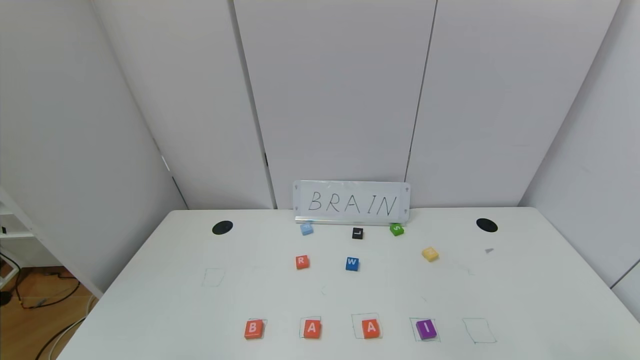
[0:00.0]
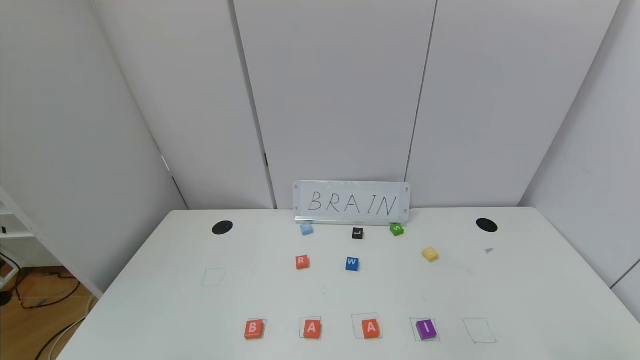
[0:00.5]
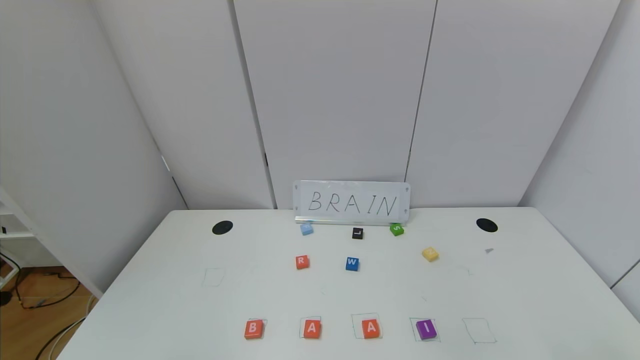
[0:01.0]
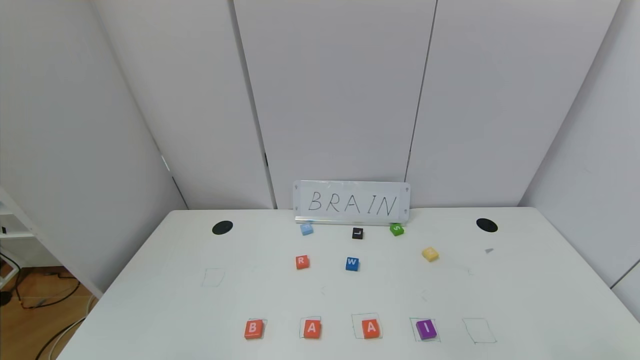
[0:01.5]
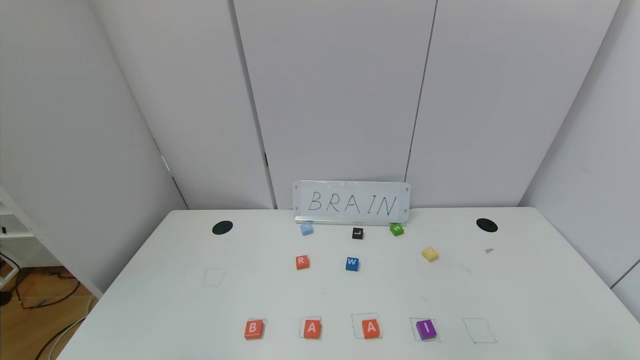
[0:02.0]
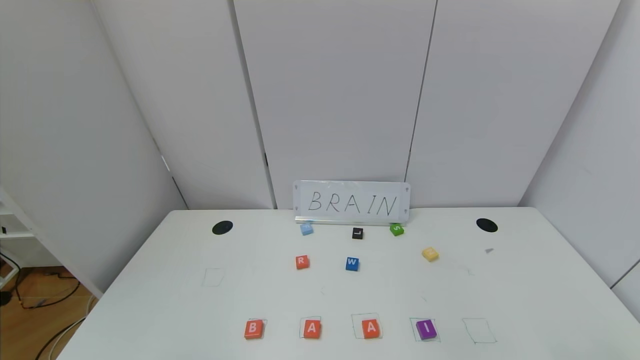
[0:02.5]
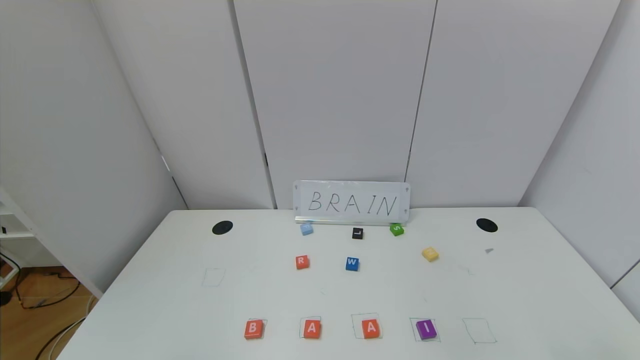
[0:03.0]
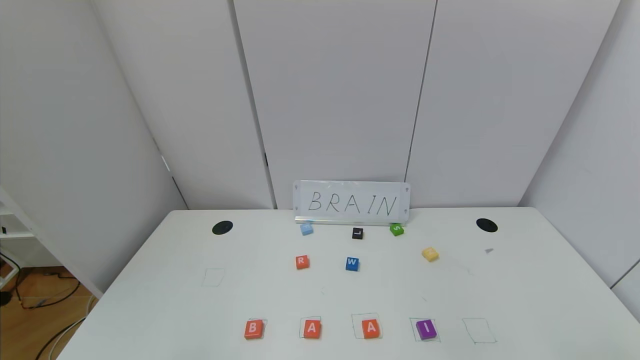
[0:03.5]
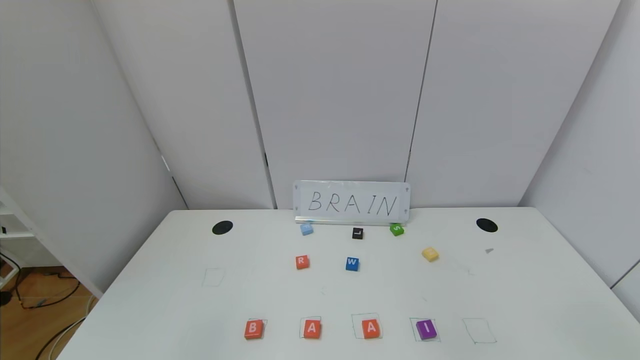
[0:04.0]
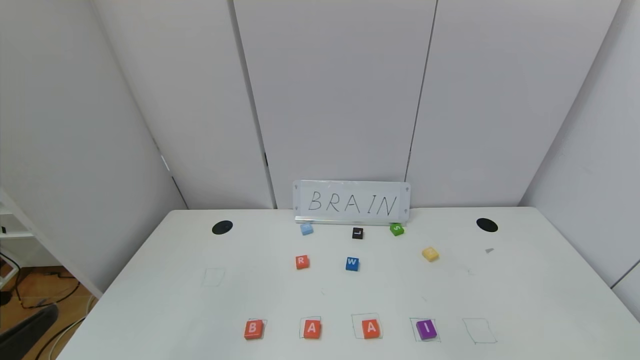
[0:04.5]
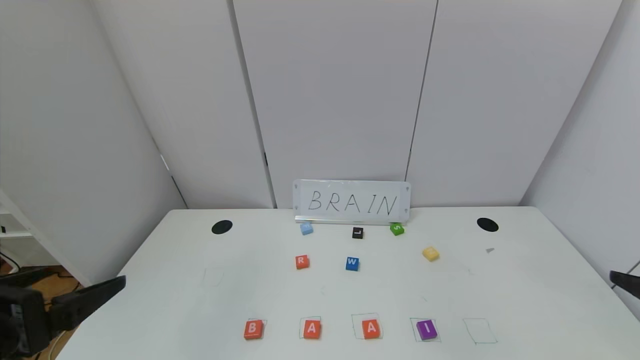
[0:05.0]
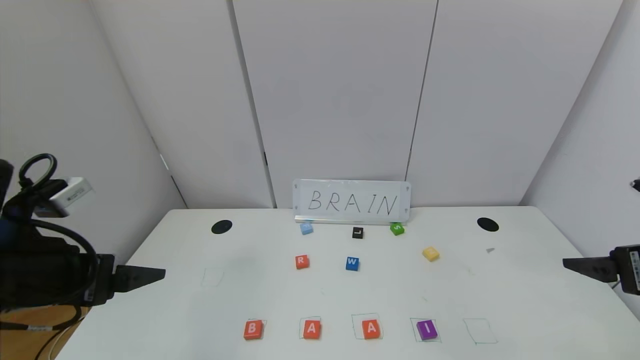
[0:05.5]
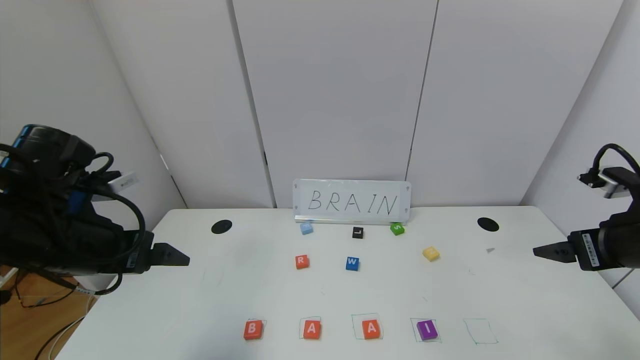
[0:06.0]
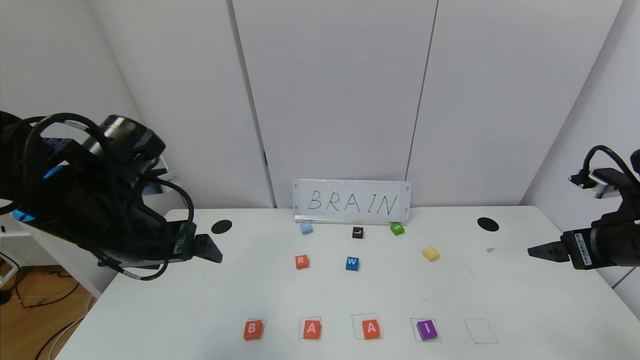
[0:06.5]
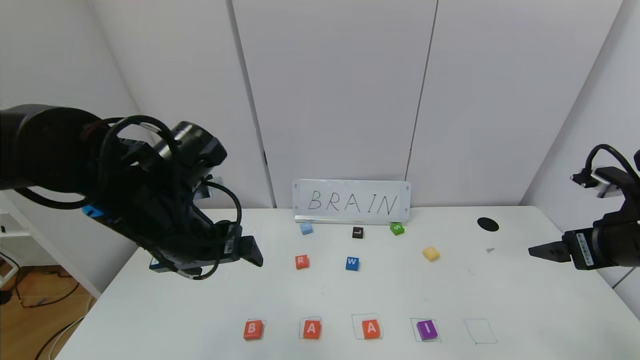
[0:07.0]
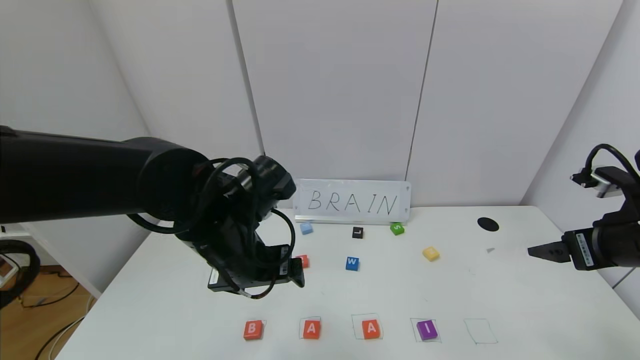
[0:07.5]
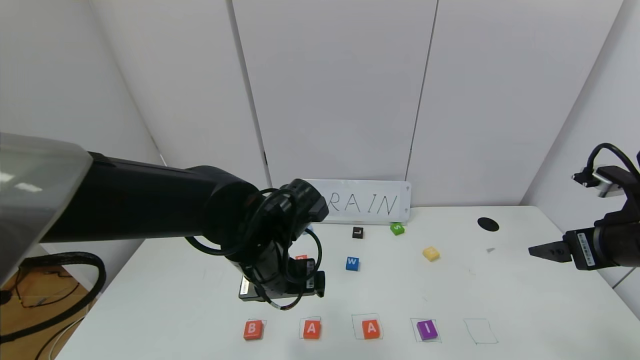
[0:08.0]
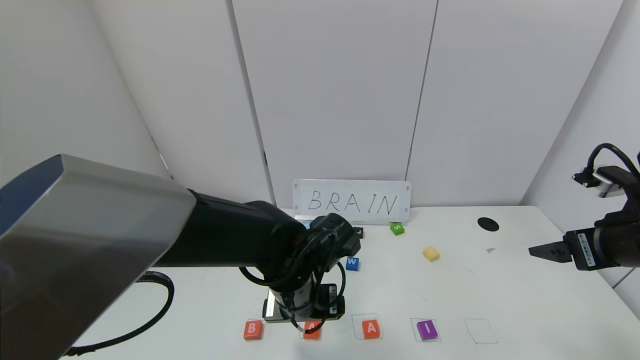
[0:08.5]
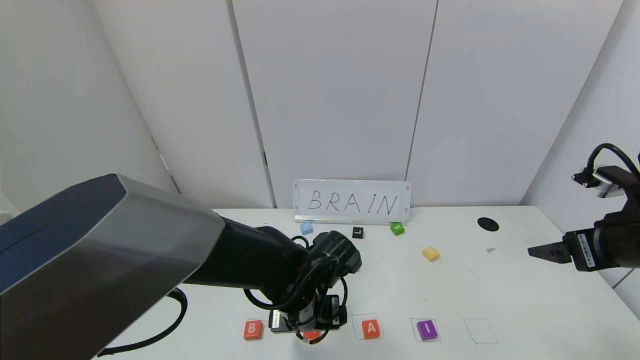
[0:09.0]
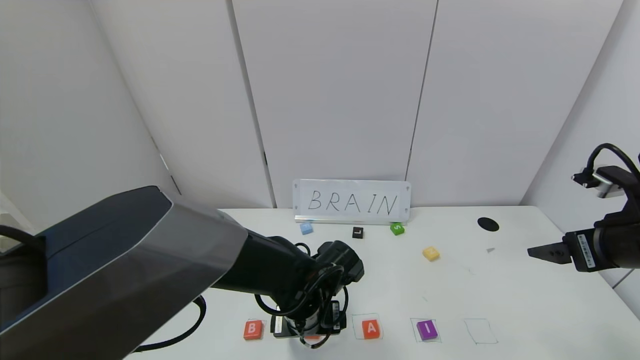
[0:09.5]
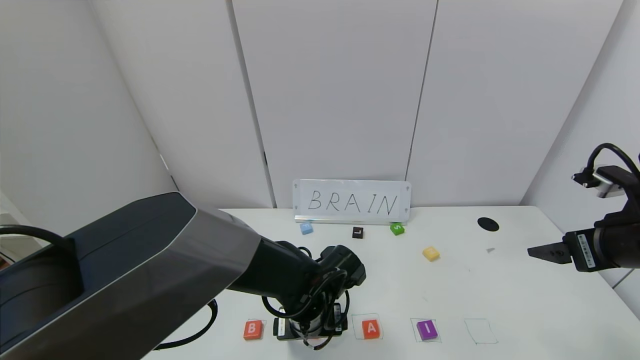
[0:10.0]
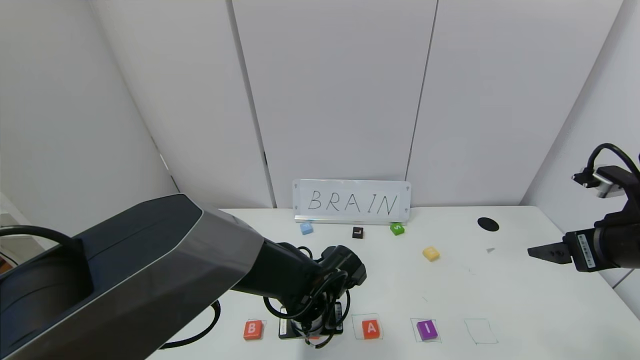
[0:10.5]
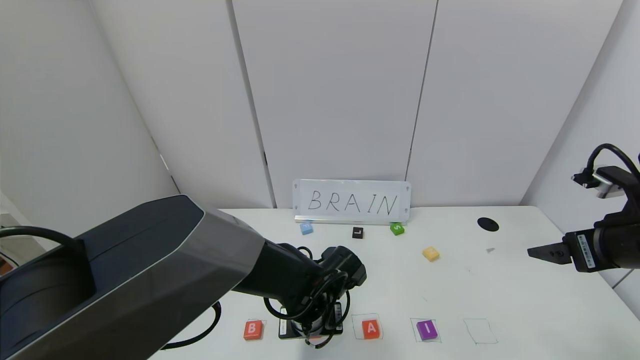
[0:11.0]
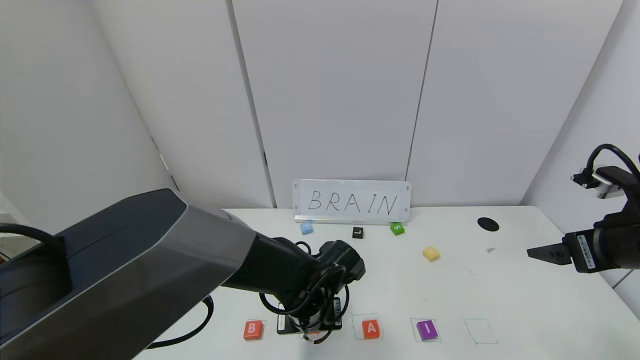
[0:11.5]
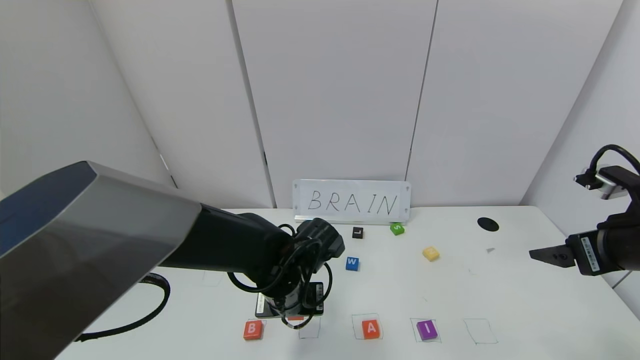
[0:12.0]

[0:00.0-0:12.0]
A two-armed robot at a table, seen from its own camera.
Task of the whole recording: use the gripper to find blocks with the letters b, a, a, and i on the table and arrange them into BAAI, then find r and N and turn the arranged baai into brian.
0:00.0 to 0:02.0: Both grippers stay put.
0:04.0 to 0:06.0: The two grippers go approximately 25 cm forward.
0:06.0 to 0:08.0: The left gripper travels to the right by roughly 20 cm.
0:08.0 to 0:10.0: The left gripper travels downward by approximately 10 cm.
0:10.0 to 0:12.0: The left gripper moves approximately 5 cm, and closes up.

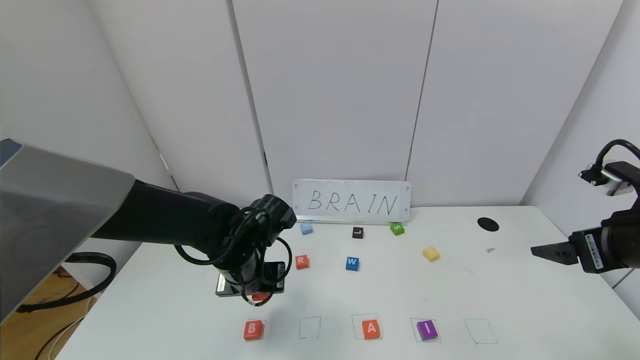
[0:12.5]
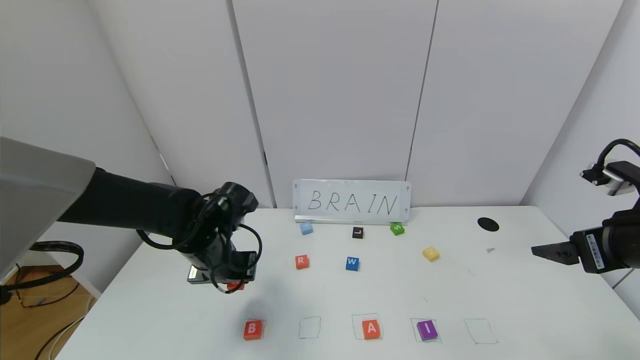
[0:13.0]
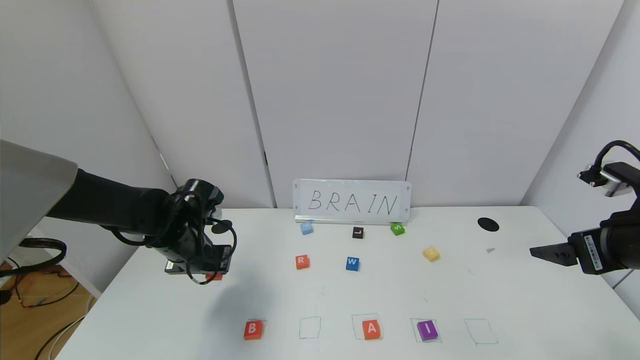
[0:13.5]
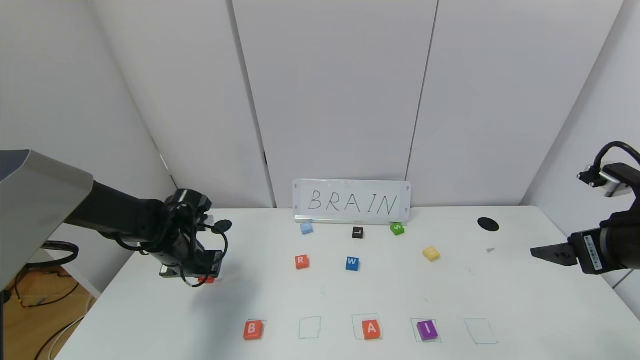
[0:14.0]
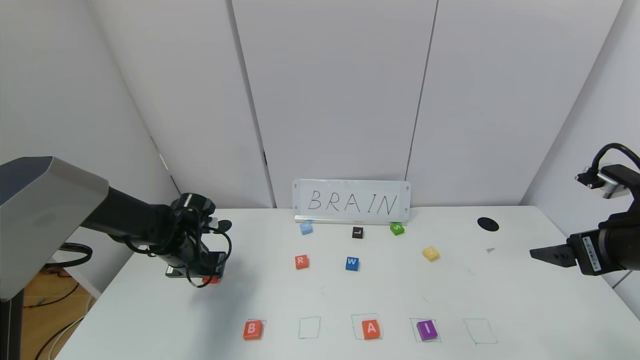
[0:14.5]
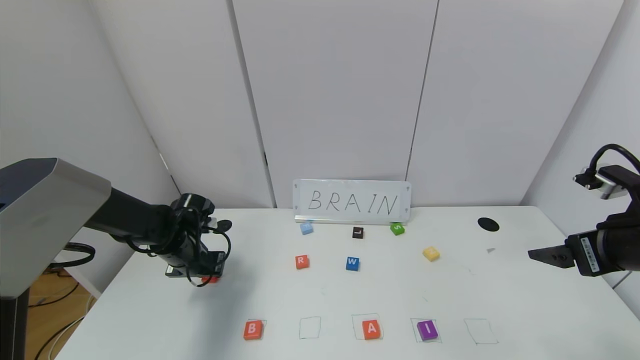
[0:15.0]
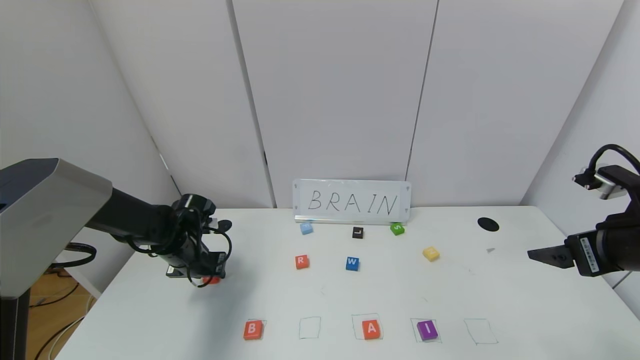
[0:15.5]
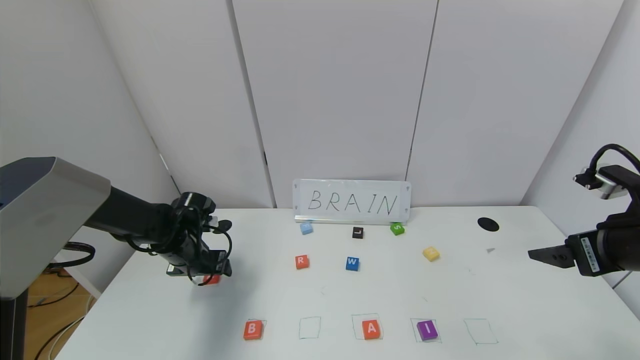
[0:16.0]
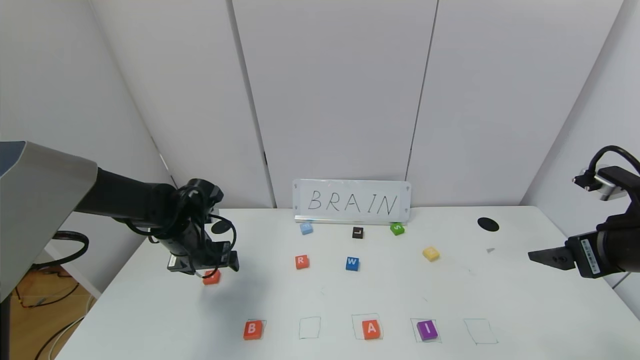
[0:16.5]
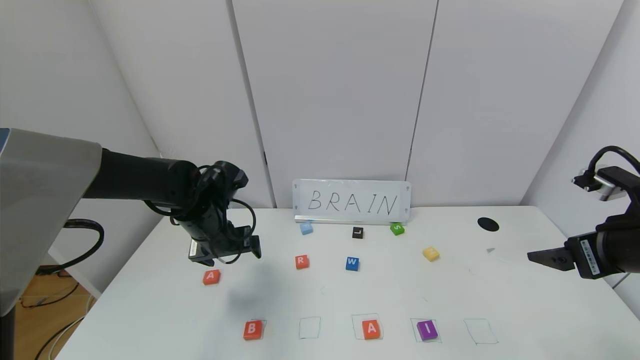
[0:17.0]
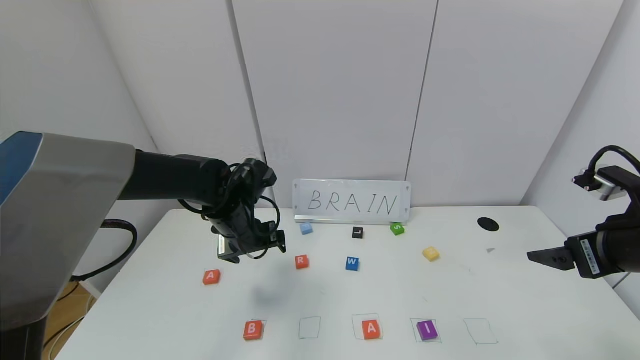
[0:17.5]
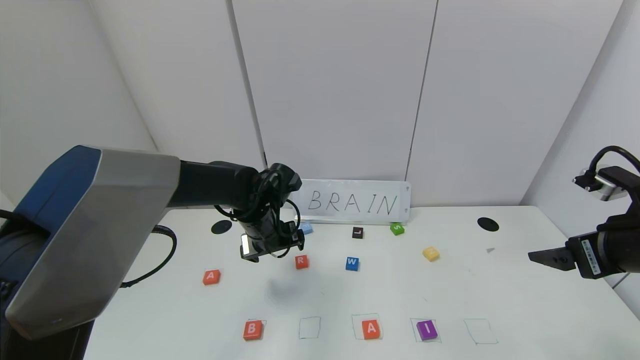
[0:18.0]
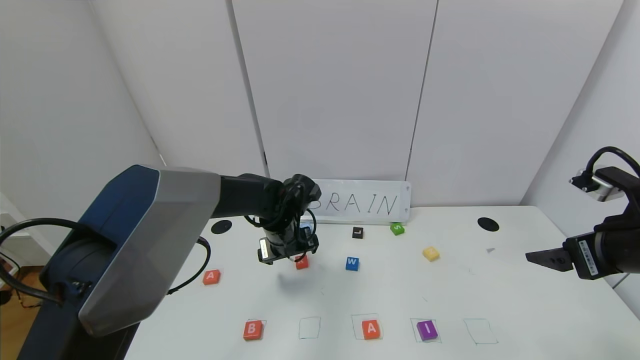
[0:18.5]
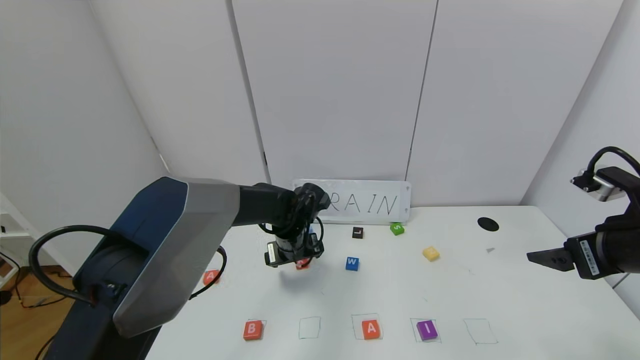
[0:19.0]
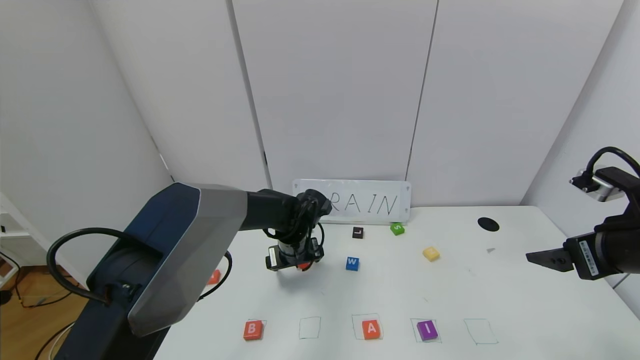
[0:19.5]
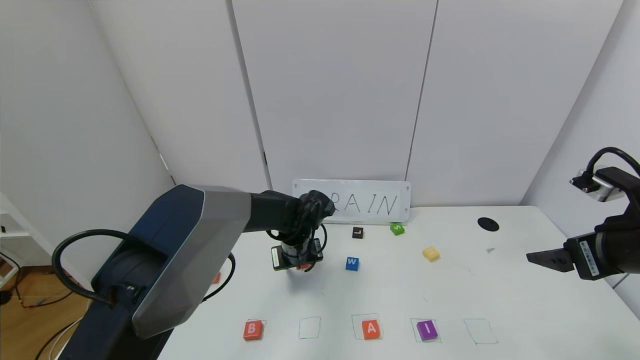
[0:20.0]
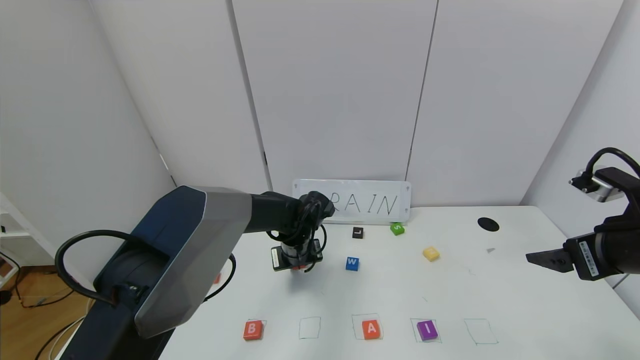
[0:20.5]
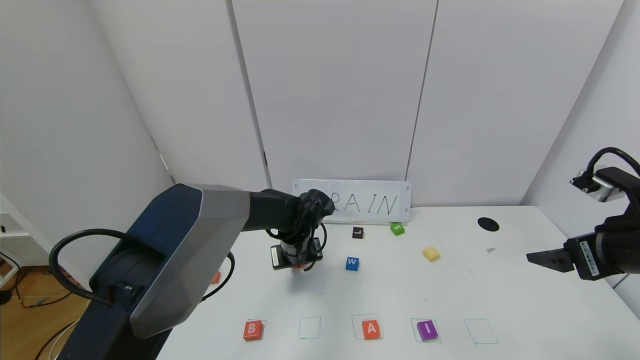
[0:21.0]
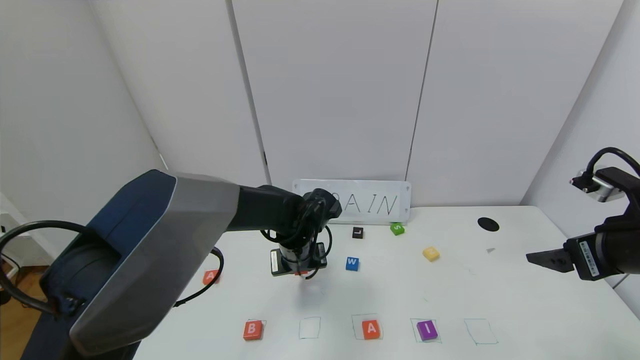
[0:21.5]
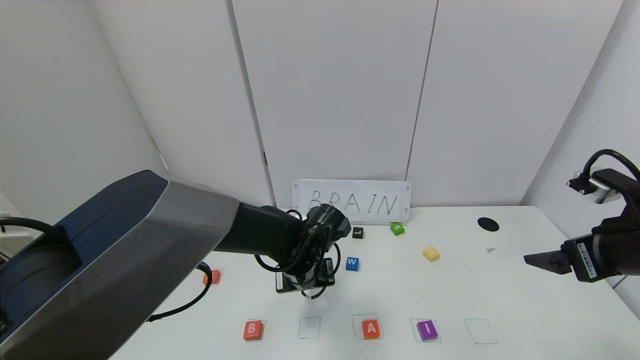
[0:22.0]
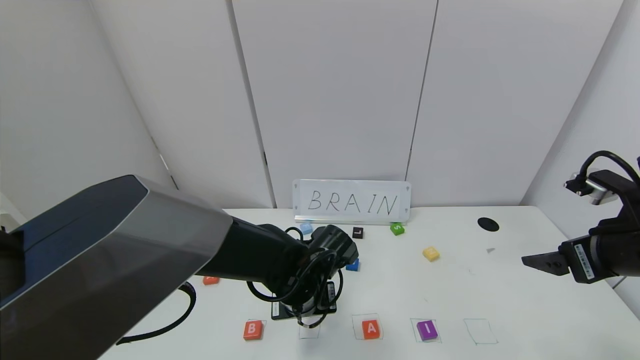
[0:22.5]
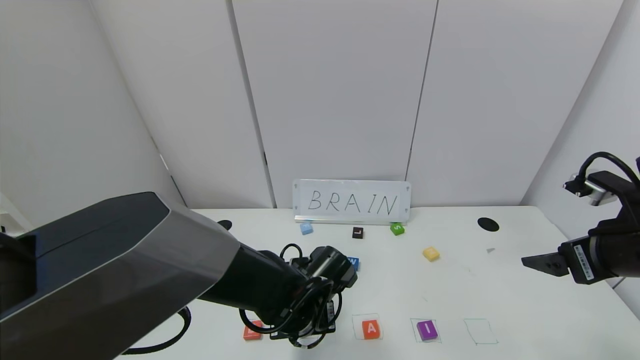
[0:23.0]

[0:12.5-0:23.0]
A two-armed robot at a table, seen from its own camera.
Task of the whole recording: use the gripper to find blocks with the letters b, a, a, and i on the table and arrange them into BAAI, then find r and N and turn the arranged baai into brian.
Step, 0:12.5 to 0:16.0: Move the block A out of the second location.
0:12.5 to 0:14.5: The left gripper heads to the left and forward, covering approximately 15 cm.
0:14.5 to 0:16.5: The left gripper opens.
0:16.5 to 0:19.0: The left gripper heads to the right, covering roughly 20 cm.
0:19.0 to 0:21.0: The left gripper closes.
0:21.0 to 0:23.0: The left gripper shifts some 15 cm backward.
